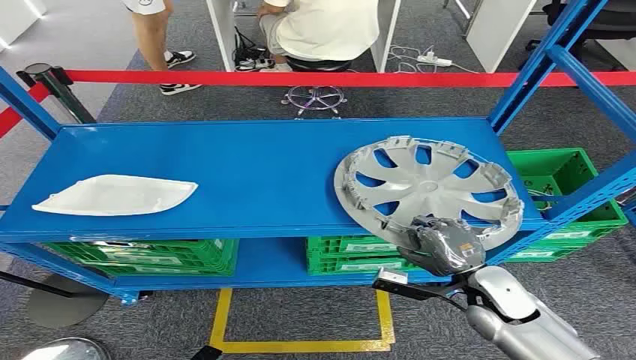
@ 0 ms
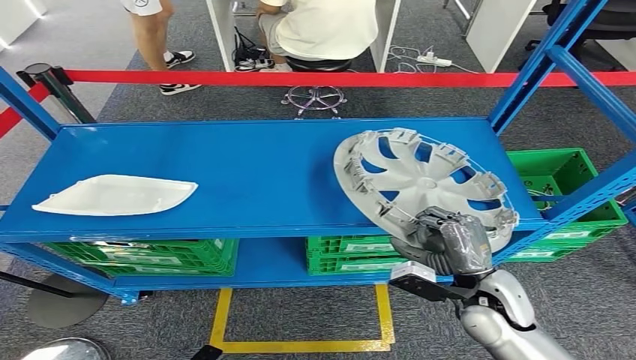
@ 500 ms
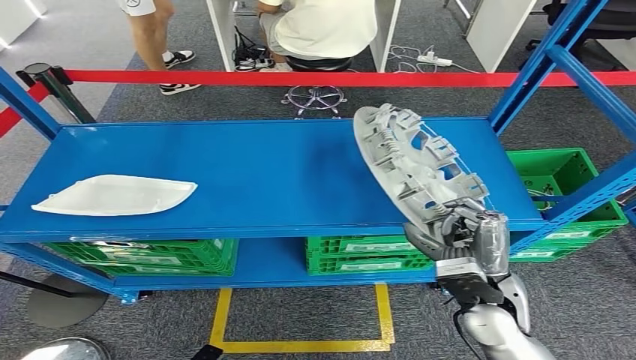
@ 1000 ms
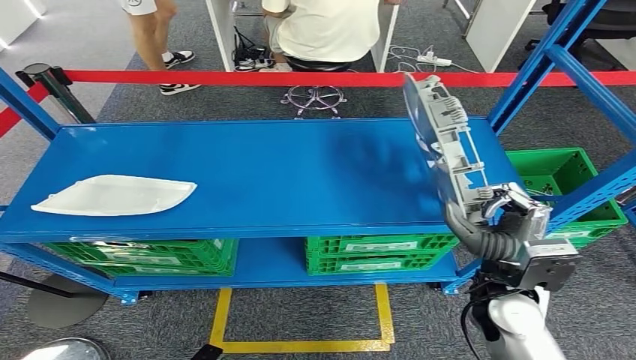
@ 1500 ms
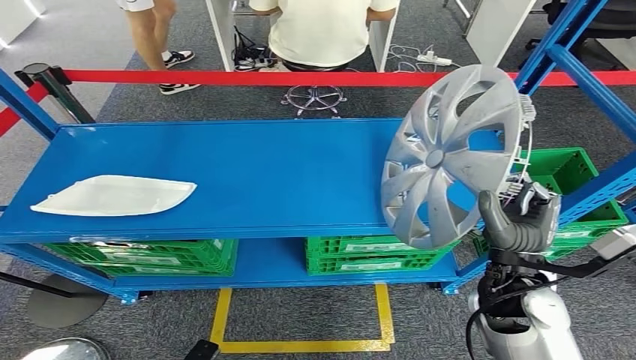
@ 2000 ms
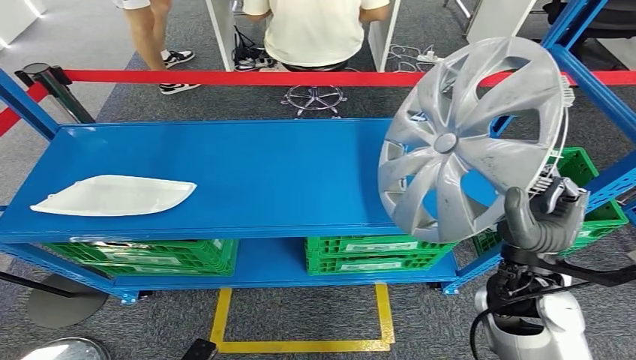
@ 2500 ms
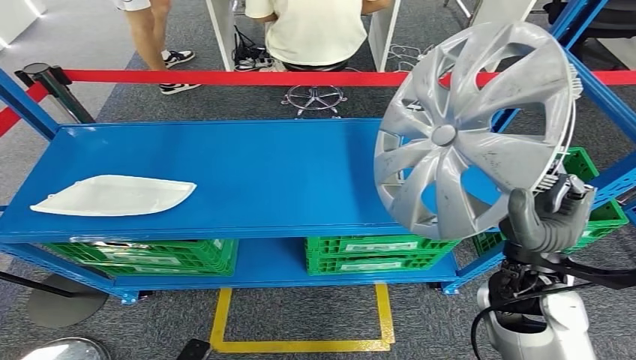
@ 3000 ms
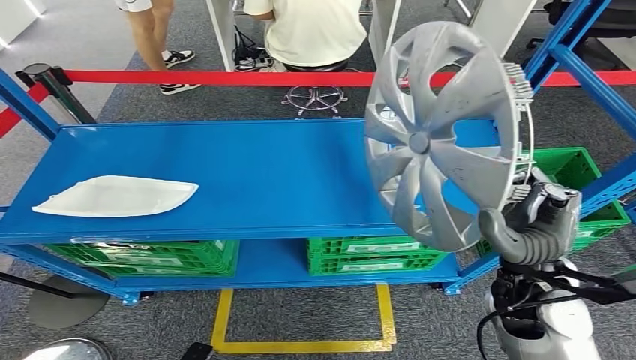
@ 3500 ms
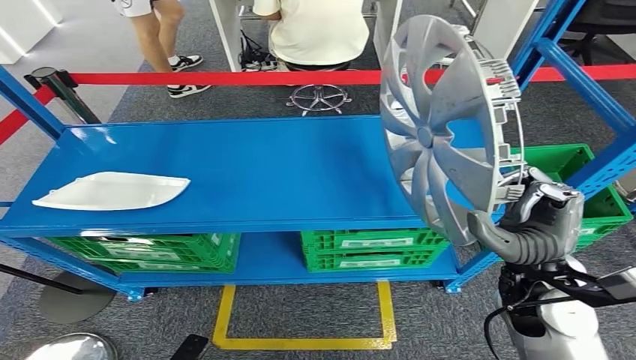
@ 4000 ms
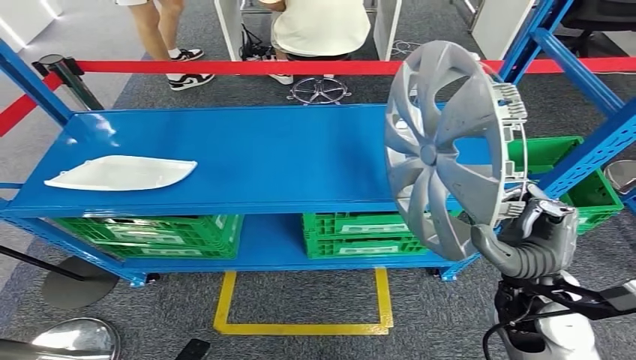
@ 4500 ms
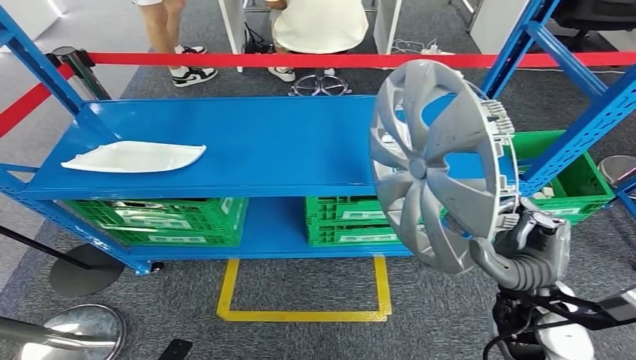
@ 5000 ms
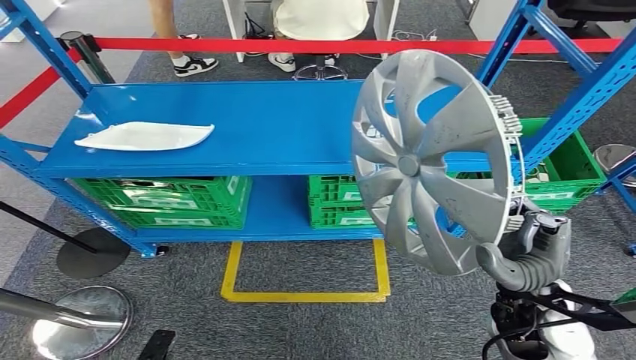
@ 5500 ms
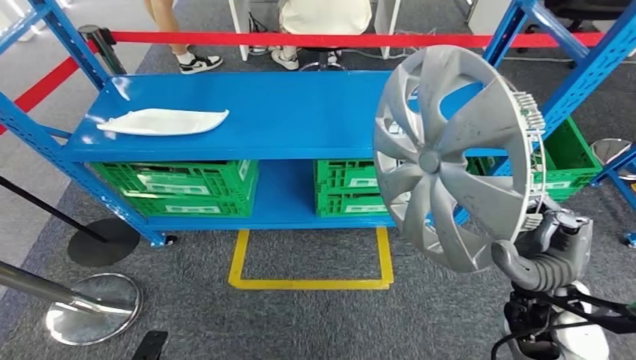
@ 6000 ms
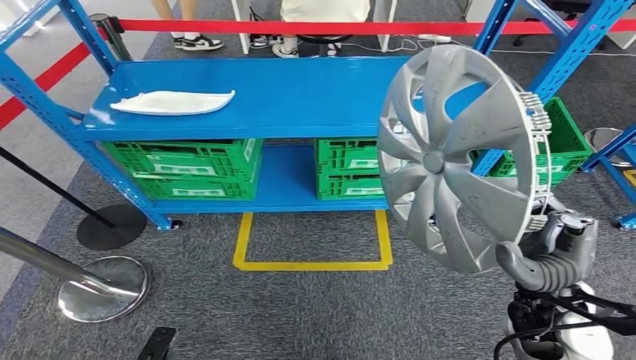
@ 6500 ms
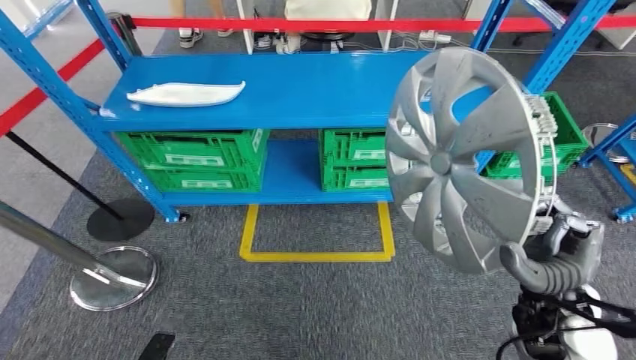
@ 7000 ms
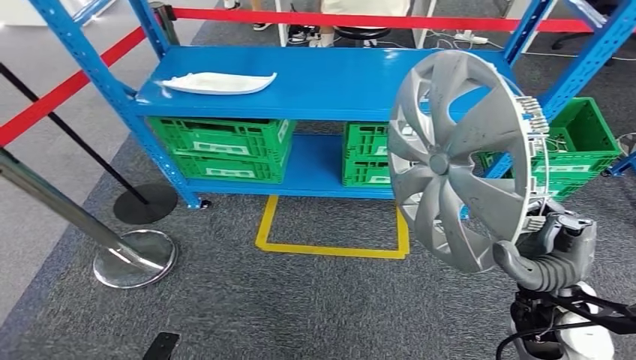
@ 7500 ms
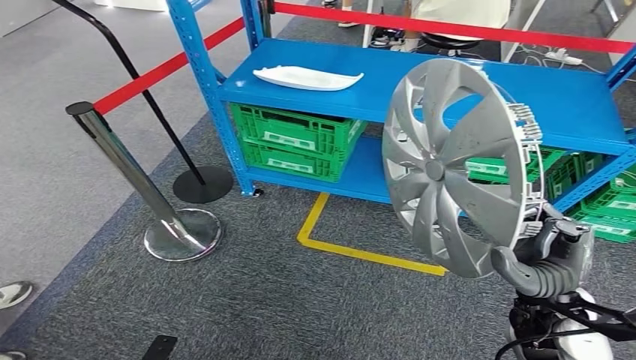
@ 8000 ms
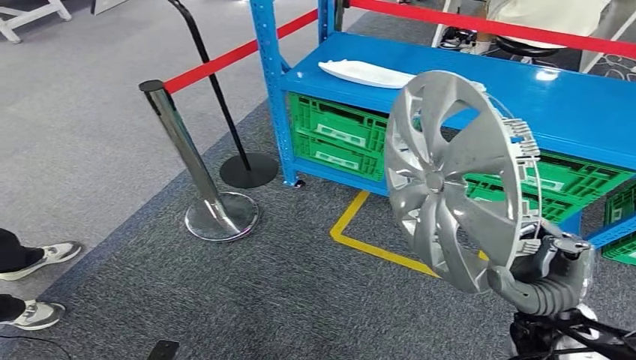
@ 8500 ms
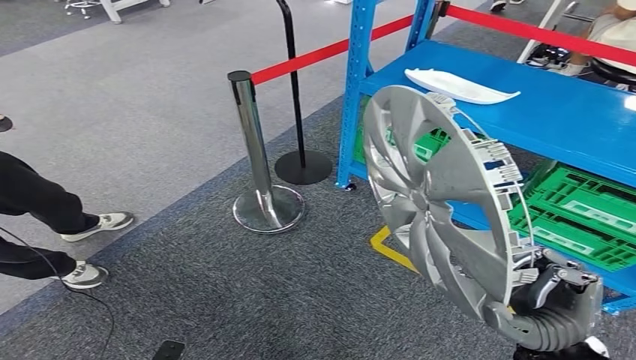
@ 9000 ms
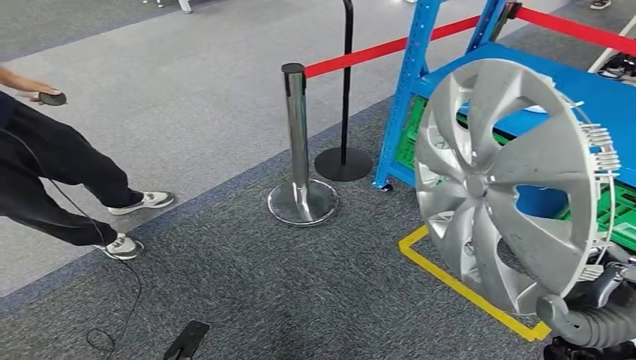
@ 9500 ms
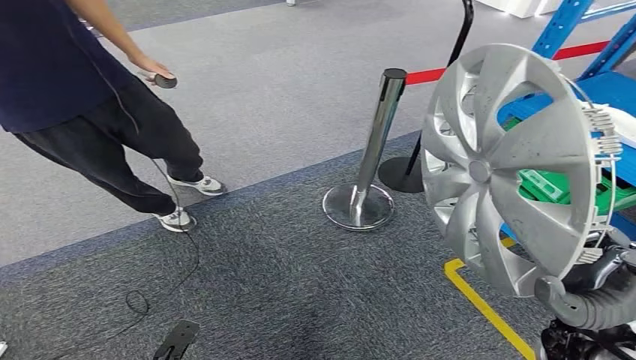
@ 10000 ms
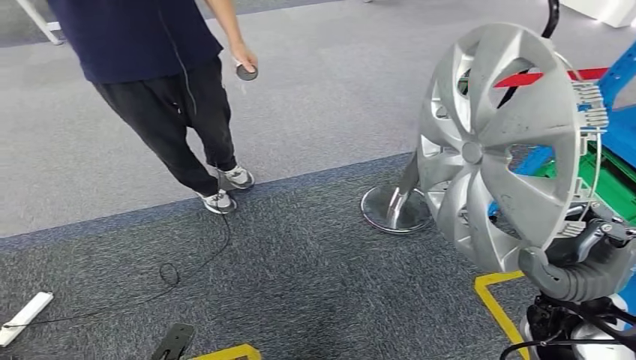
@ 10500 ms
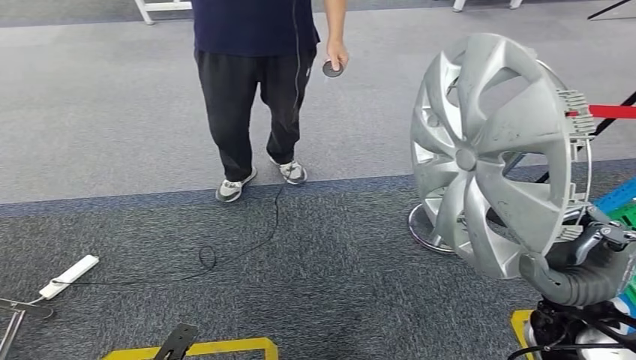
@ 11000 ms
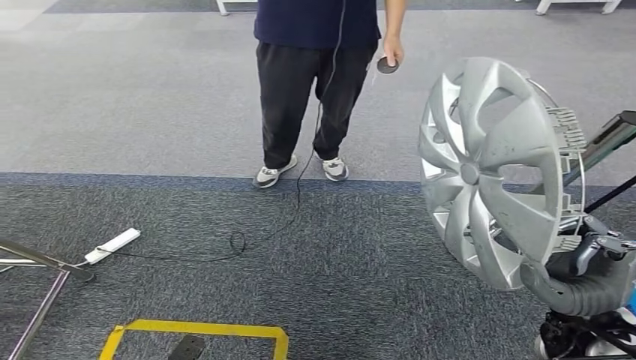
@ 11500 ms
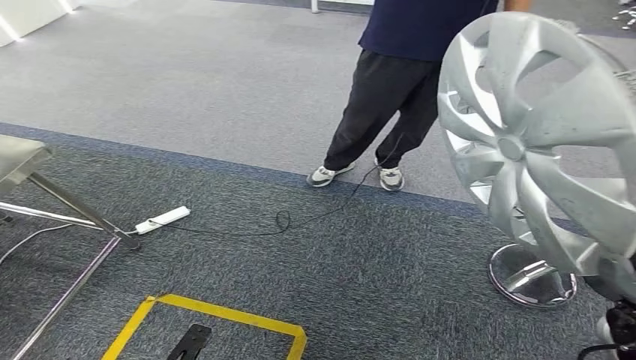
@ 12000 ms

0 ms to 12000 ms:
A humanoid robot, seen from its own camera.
Step, 0 ms to 4500 ms: Pick up the small component from the shelf.

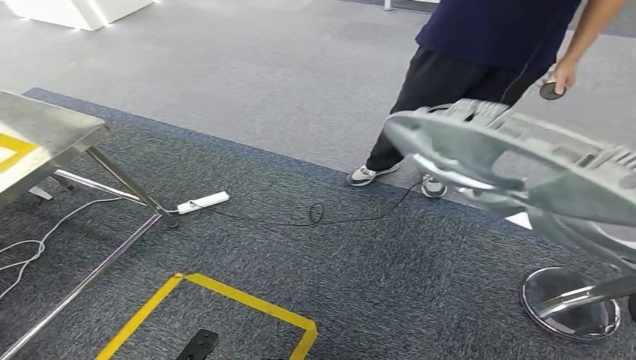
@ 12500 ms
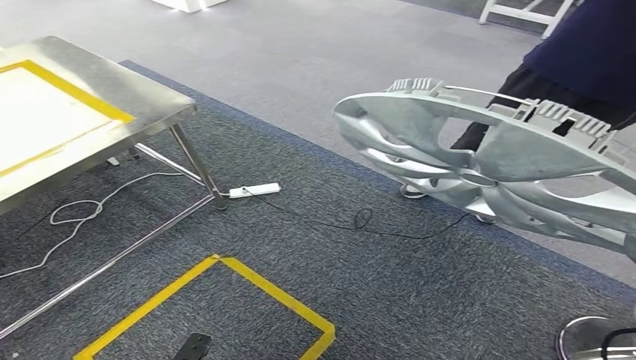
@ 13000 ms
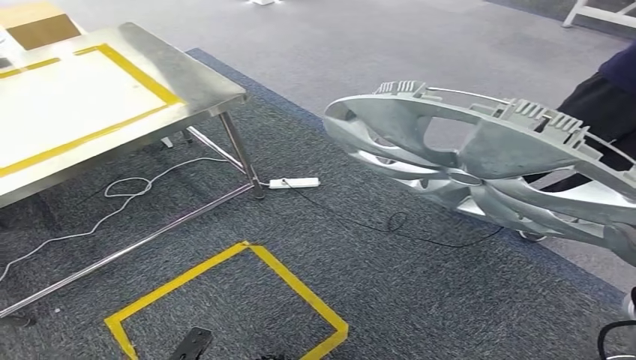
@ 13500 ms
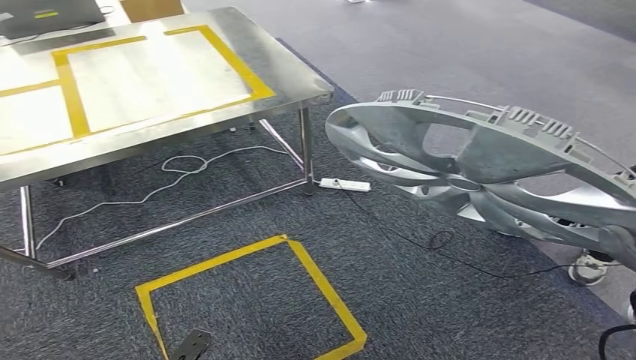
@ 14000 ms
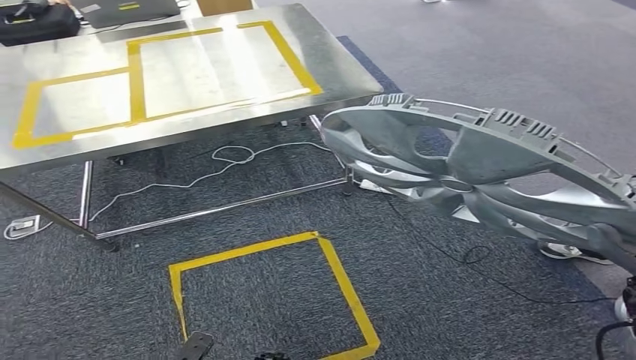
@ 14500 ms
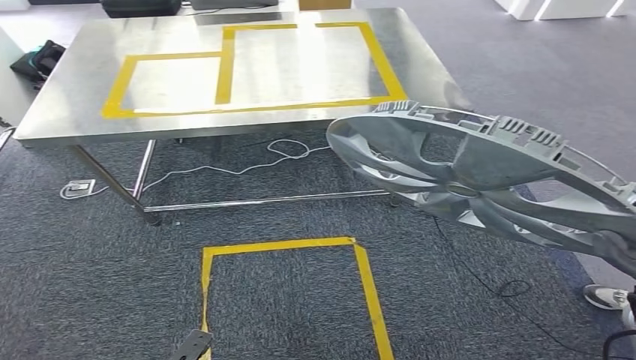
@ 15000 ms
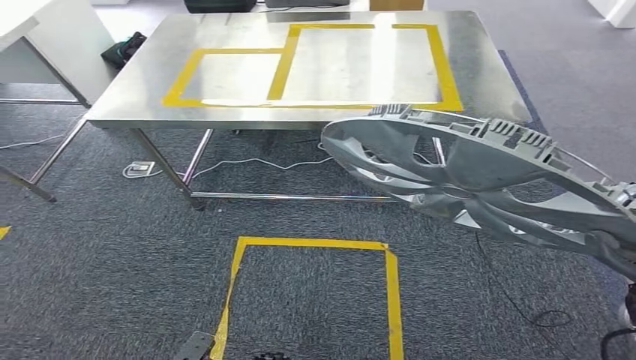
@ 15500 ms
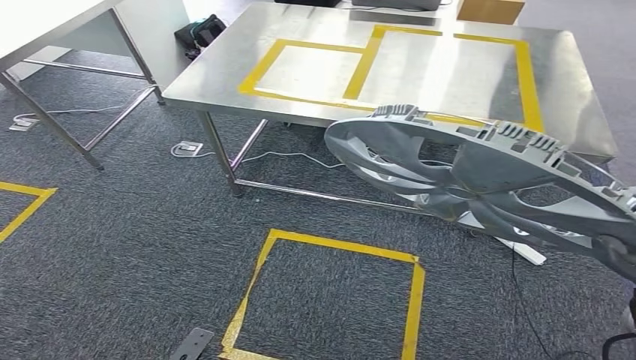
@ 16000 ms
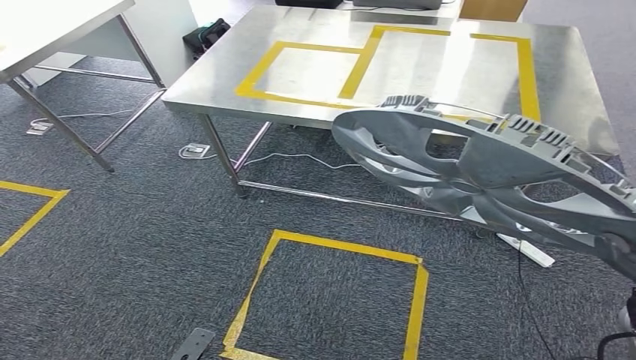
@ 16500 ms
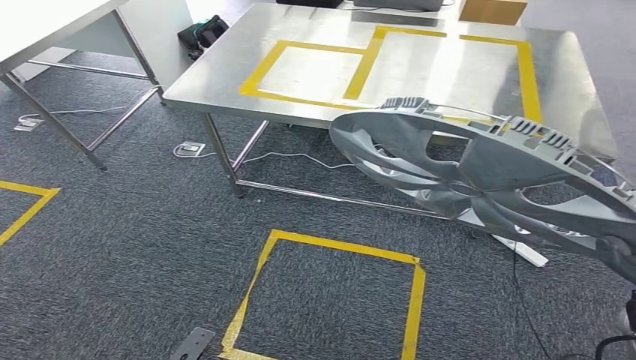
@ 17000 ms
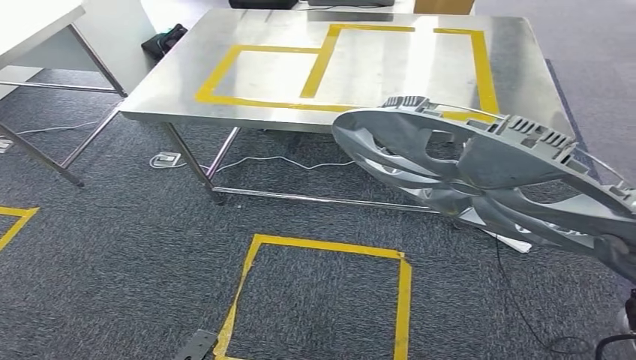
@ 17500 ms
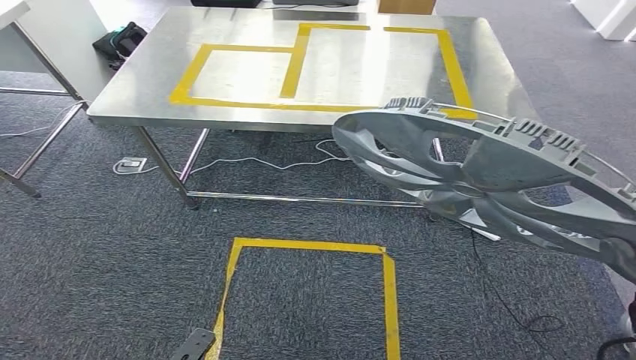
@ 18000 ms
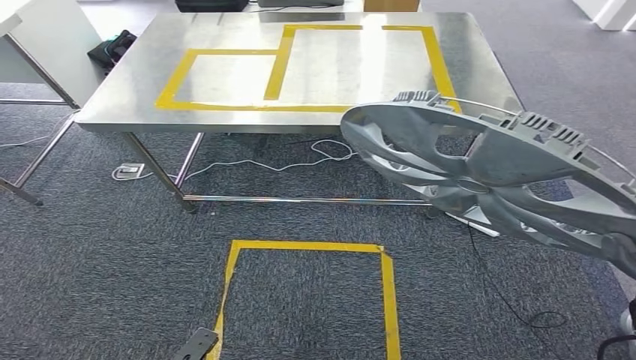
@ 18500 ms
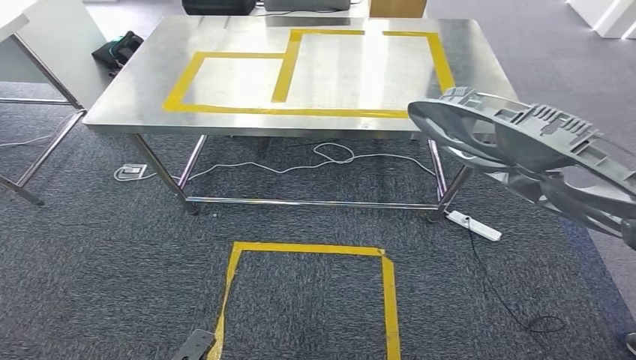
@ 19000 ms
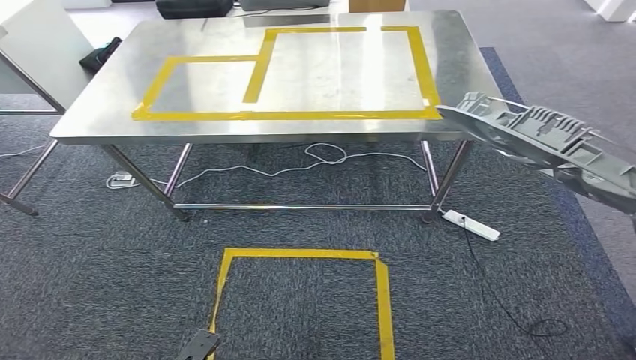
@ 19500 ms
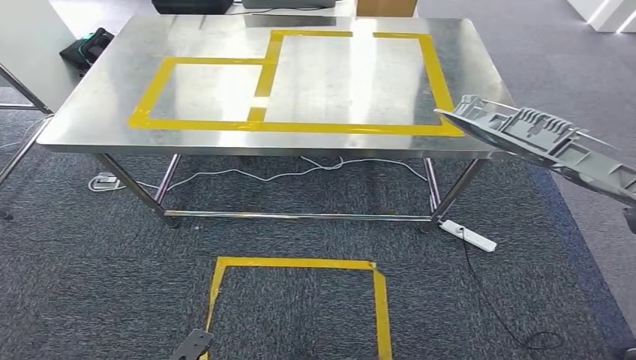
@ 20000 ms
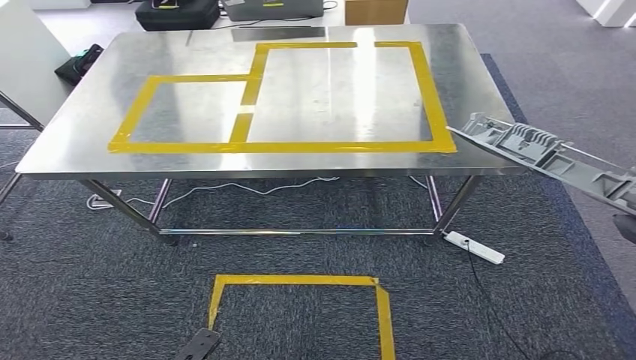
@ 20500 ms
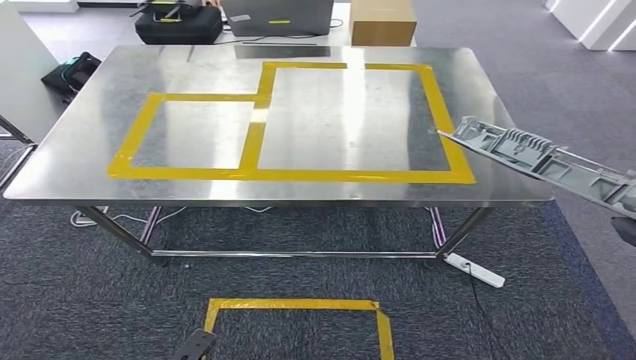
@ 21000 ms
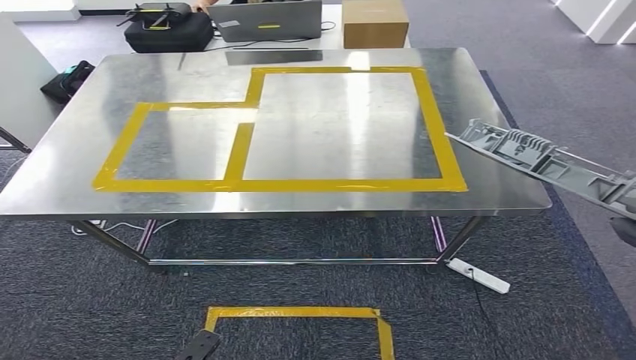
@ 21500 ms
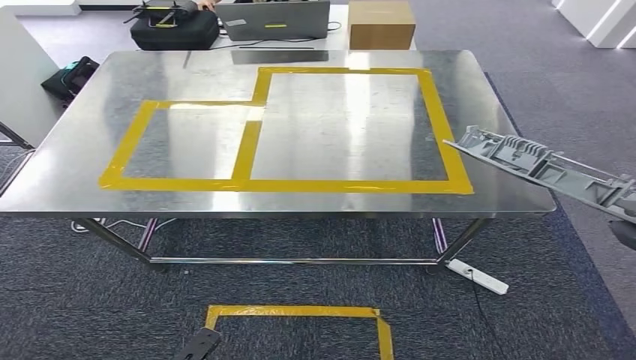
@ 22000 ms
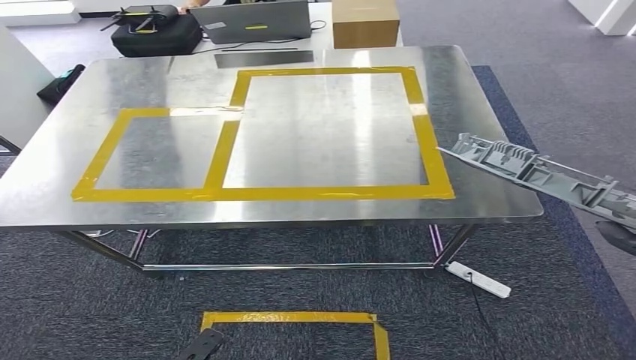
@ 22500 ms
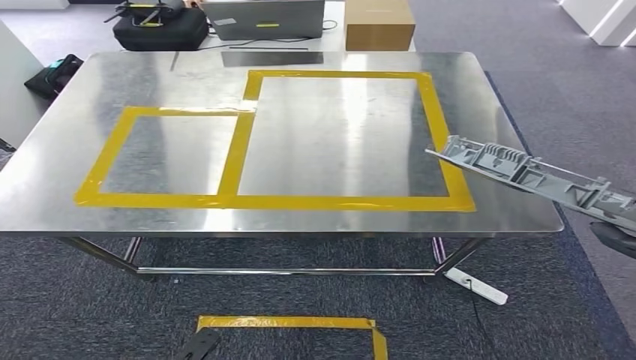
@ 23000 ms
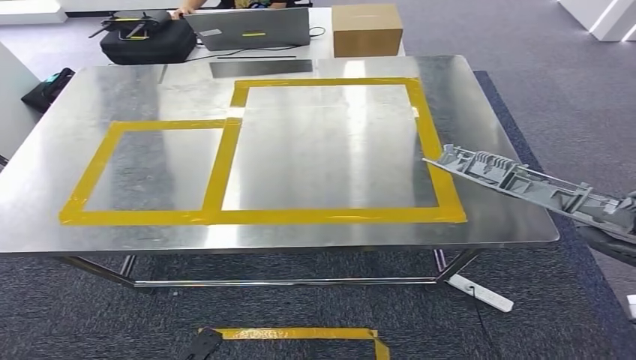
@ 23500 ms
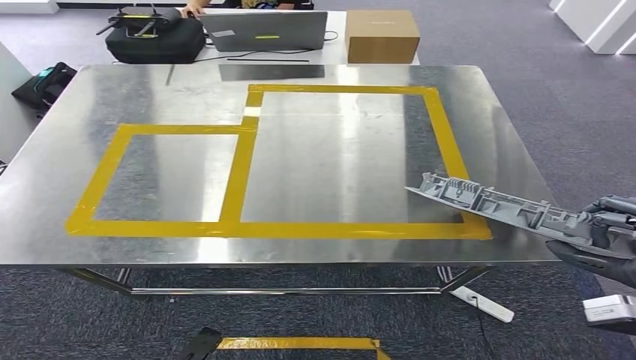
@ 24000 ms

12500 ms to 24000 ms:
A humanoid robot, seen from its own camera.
Step, 12500 ms to 19000 ms: Move the small component to the workbench.
